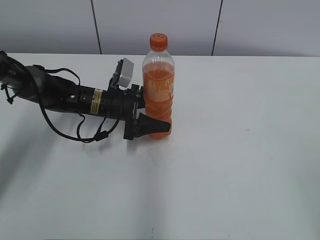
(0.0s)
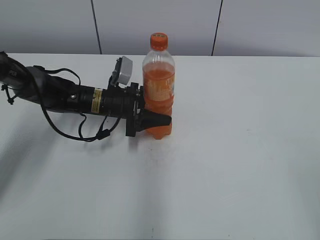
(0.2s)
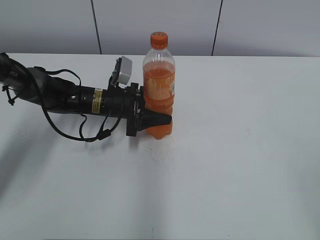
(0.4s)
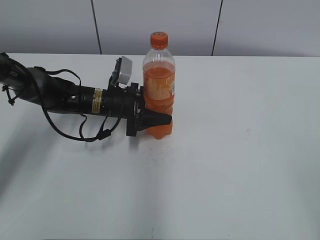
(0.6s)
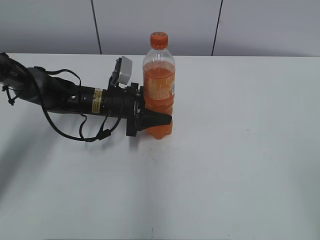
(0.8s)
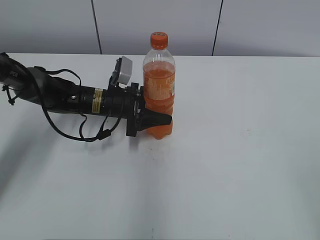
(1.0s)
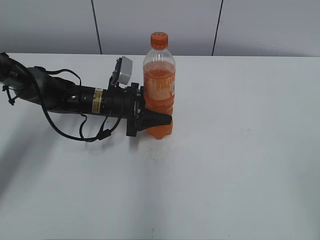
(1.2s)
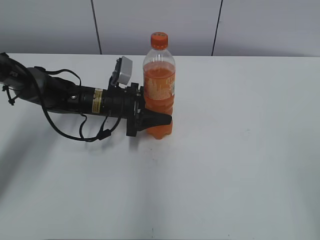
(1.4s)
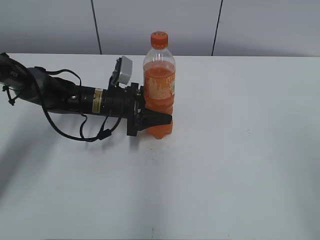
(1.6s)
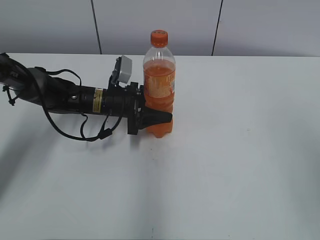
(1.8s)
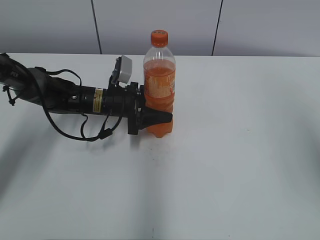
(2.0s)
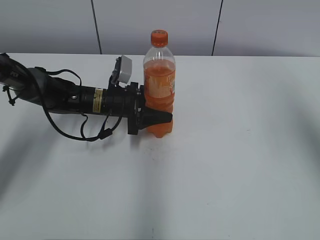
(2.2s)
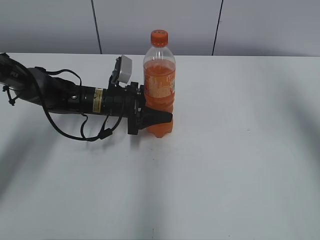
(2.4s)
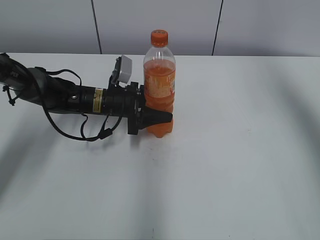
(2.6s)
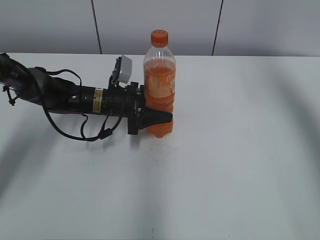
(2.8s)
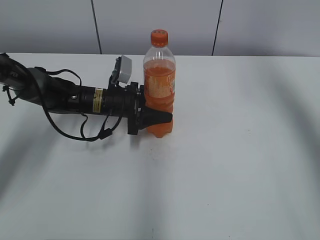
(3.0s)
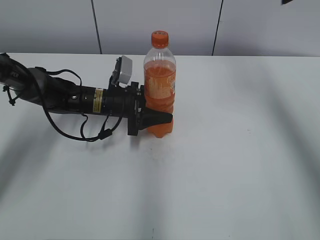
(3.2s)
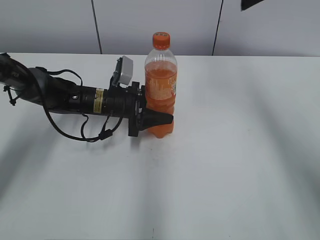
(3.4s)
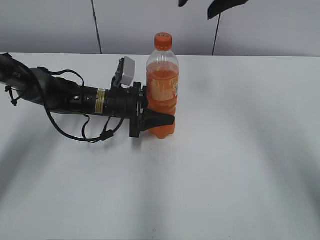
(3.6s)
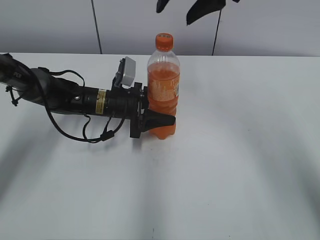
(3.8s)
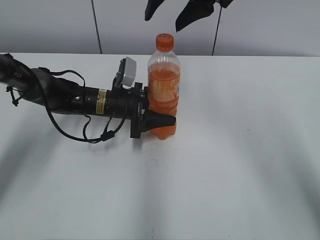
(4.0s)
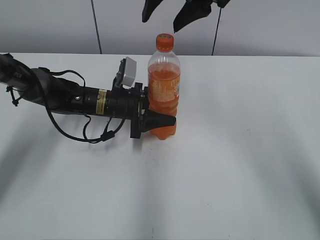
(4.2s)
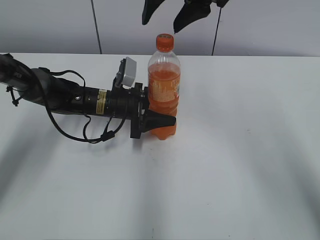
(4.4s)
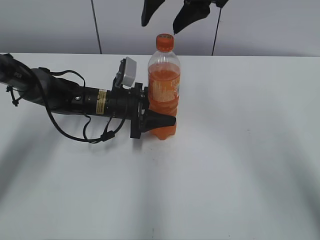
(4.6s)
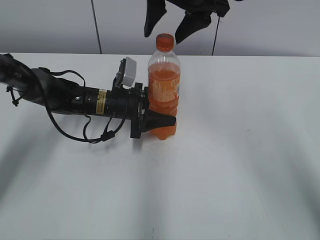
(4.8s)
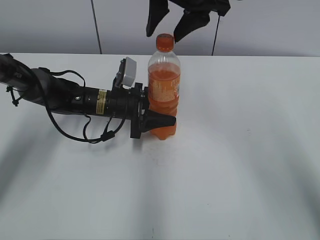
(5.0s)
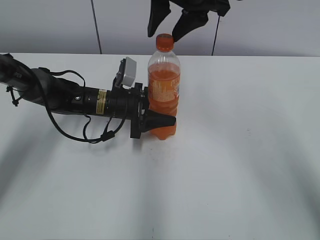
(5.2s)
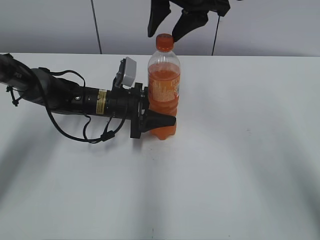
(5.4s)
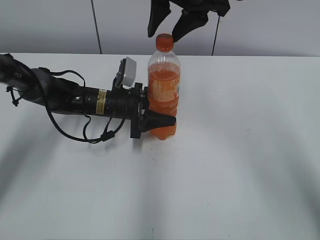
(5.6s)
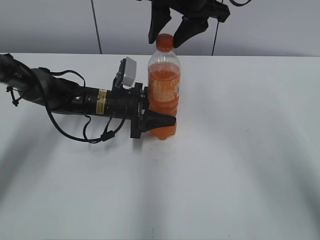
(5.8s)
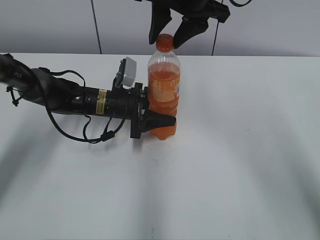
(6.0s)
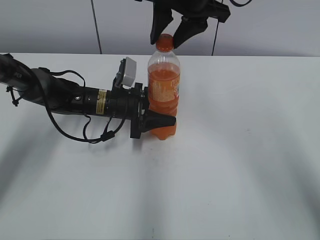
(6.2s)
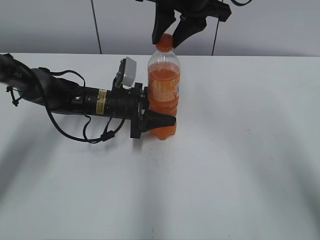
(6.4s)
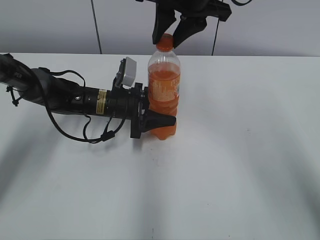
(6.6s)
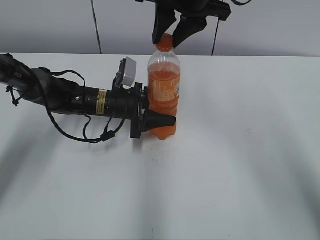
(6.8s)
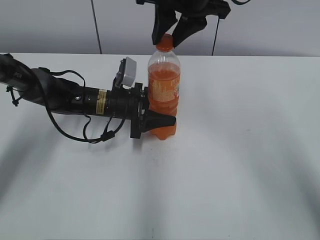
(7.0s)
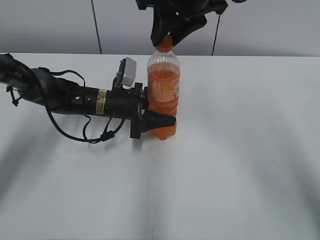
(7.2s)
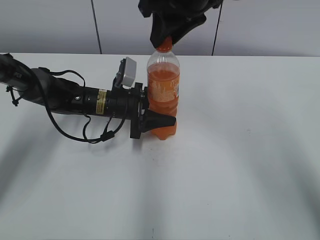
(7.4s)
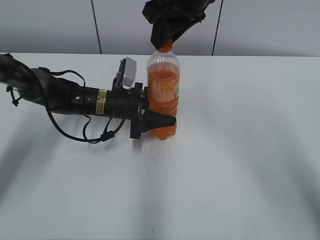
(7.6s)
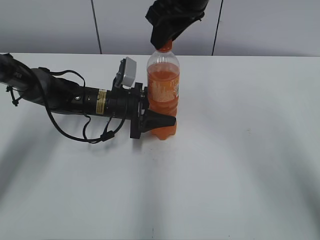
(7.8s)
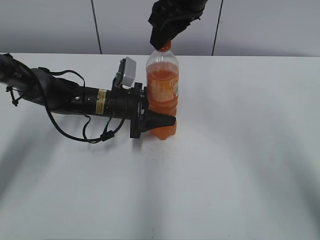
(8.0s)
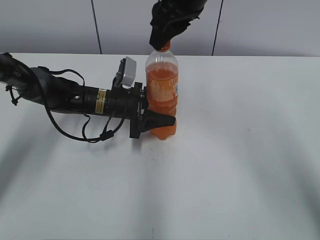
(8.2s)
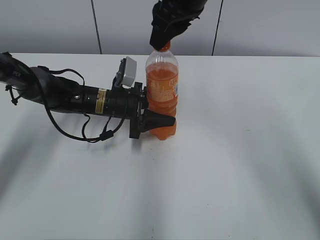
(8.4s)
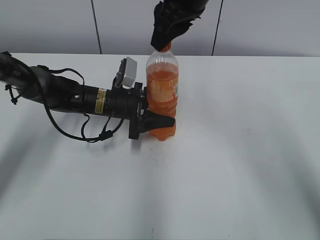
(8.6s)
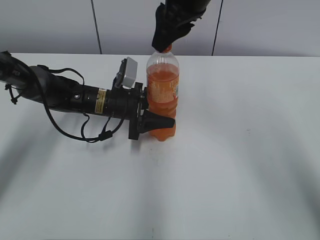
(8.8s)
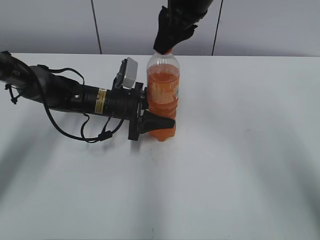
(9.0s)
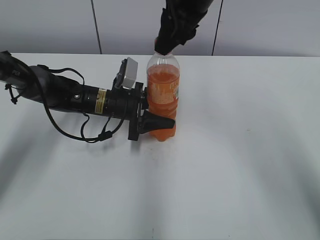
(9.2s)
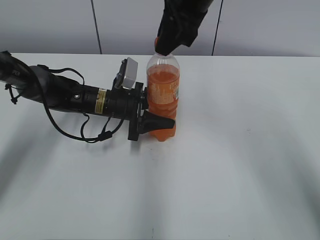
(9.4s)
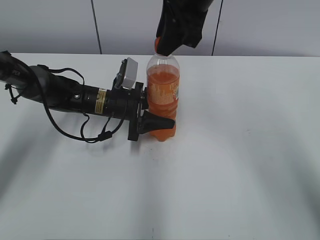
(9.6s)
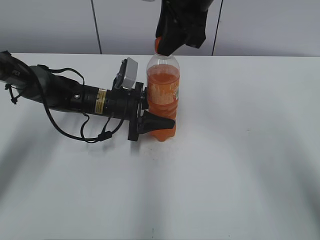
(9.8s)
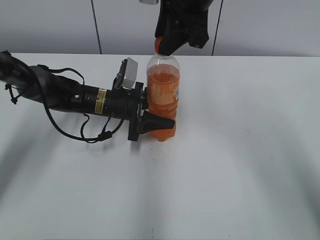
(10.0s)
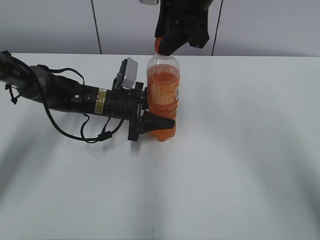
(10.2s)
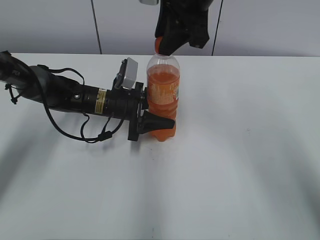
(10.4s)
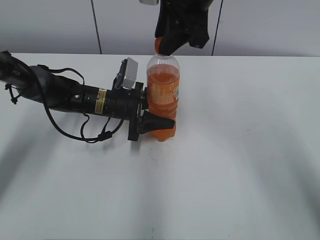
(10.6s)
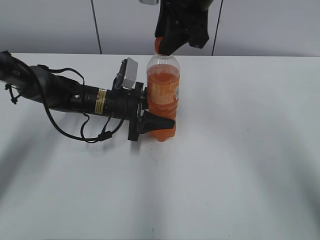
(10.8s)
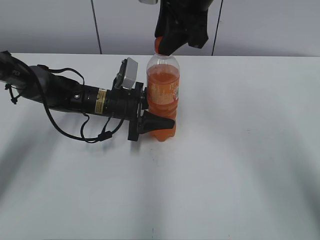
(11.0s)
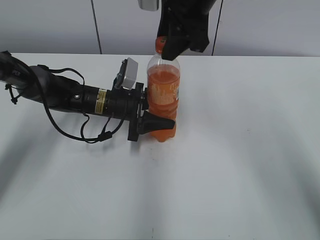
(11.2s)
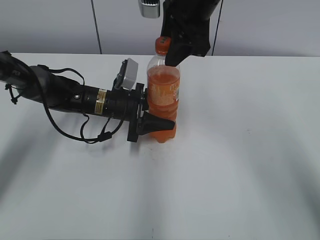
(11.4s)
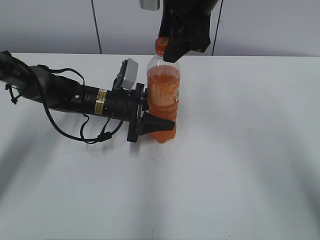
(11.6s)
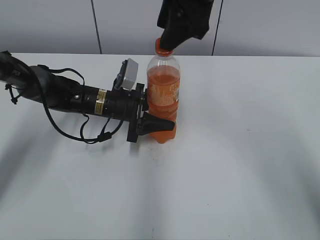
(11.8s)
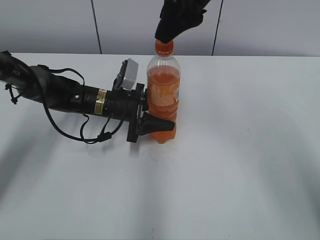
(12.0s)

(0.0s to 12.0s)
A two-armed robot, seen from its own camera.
0.0s - 1.6s: The left gripper closes its fingers; the right gripper shifts by some 5 cm.
1.6s - 3.0s: The right gripper heads forward, covering about 35 cm.
3.0s - 4.4s: The right gripper shifts some 20 cm to the left.
4.4s - 6.0s: The right gripper closes.
6.0s - 7.6s: The right gripper closes its fingers.
10.4s - 12.0s: The right gripper opens up.

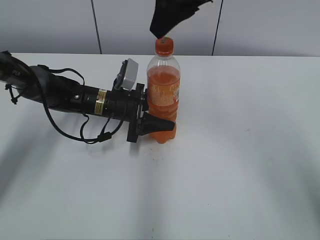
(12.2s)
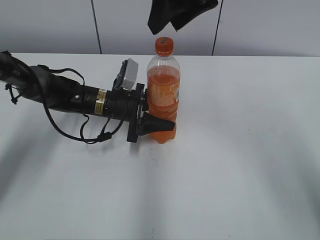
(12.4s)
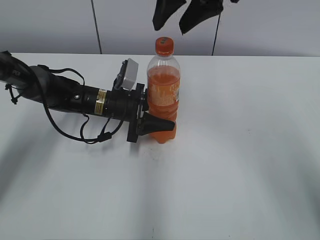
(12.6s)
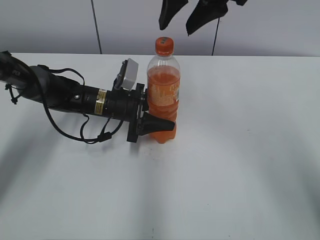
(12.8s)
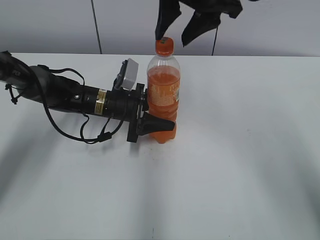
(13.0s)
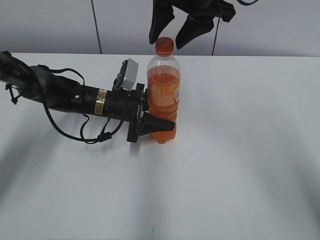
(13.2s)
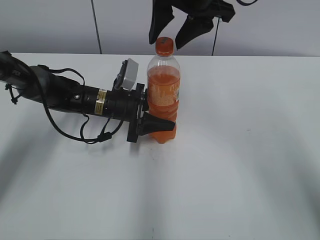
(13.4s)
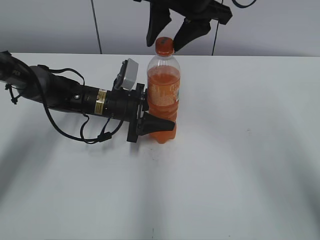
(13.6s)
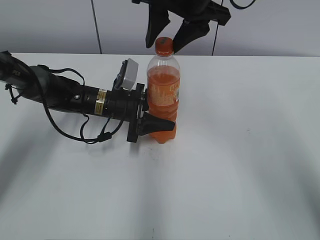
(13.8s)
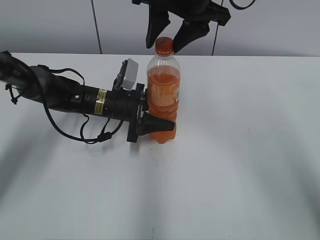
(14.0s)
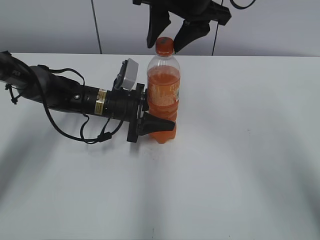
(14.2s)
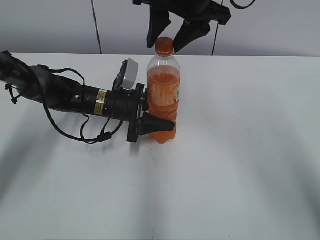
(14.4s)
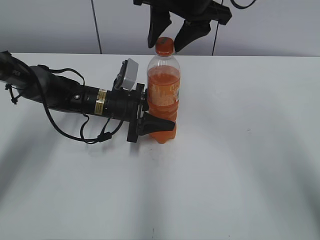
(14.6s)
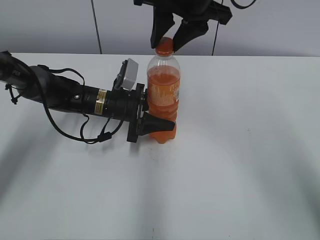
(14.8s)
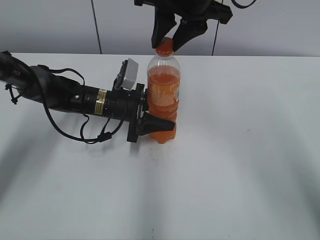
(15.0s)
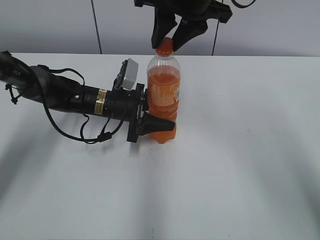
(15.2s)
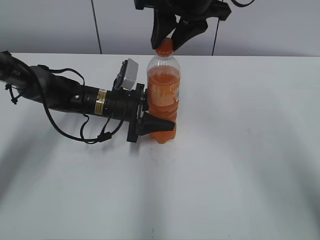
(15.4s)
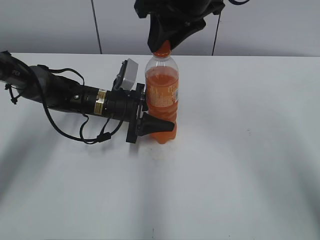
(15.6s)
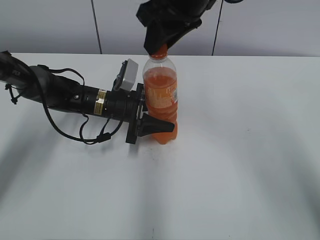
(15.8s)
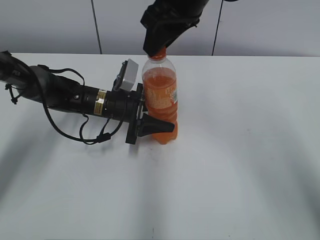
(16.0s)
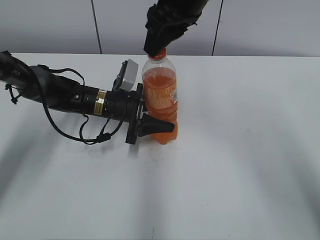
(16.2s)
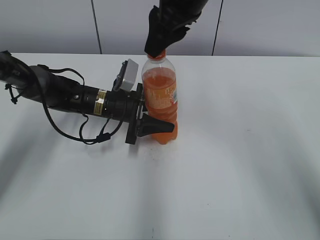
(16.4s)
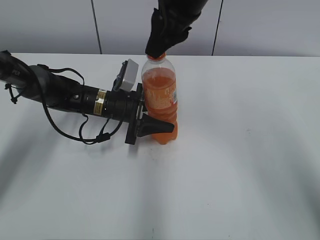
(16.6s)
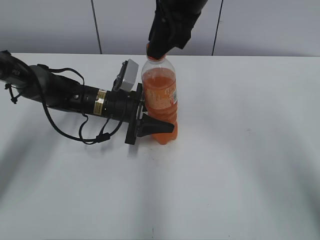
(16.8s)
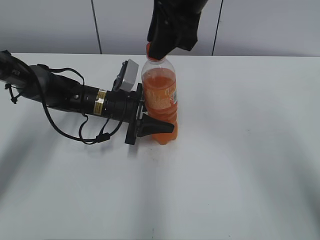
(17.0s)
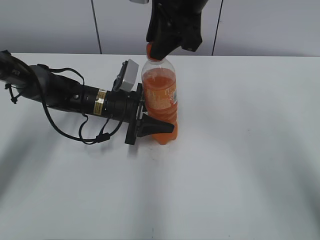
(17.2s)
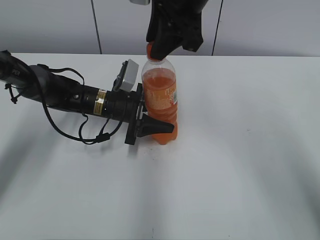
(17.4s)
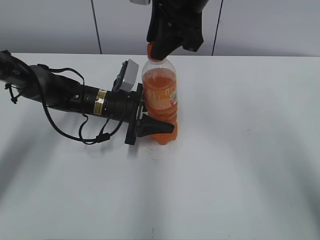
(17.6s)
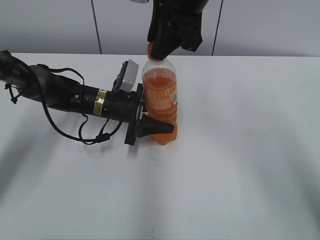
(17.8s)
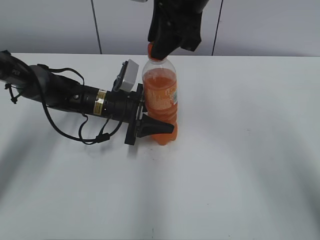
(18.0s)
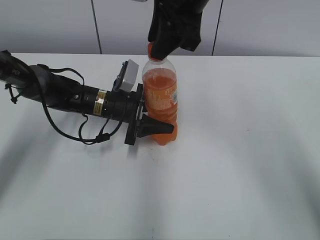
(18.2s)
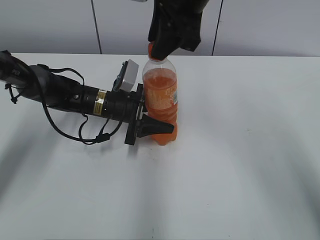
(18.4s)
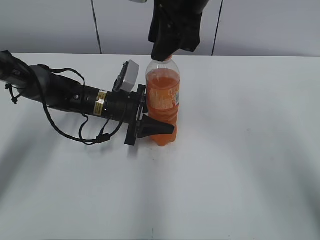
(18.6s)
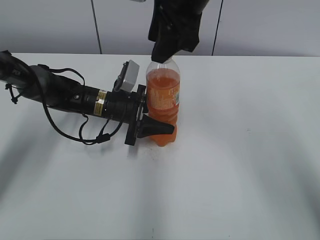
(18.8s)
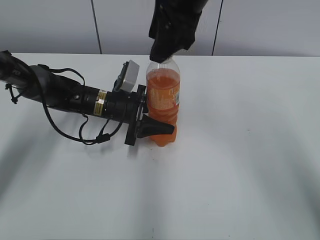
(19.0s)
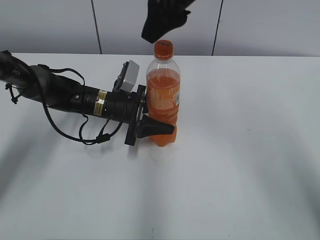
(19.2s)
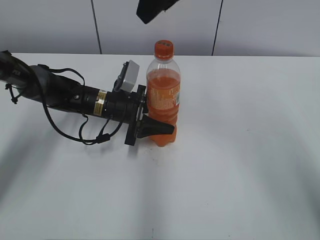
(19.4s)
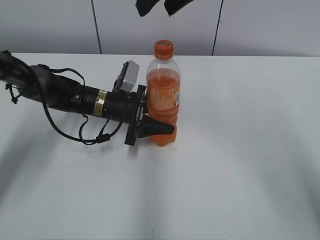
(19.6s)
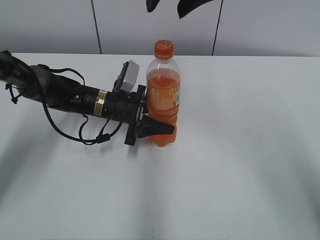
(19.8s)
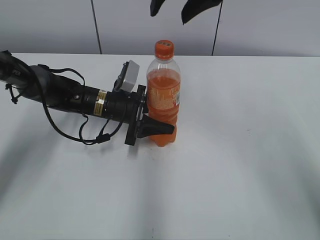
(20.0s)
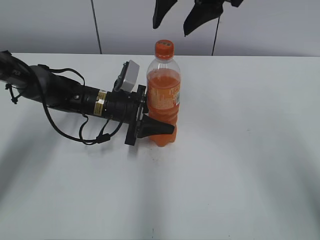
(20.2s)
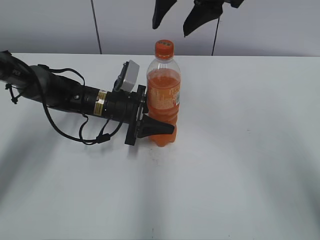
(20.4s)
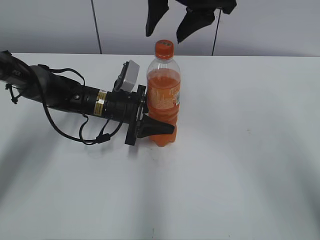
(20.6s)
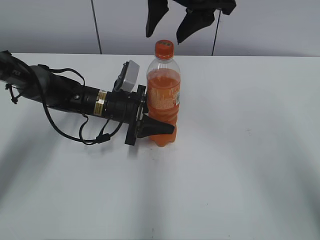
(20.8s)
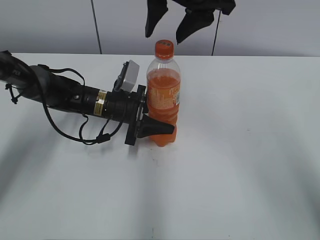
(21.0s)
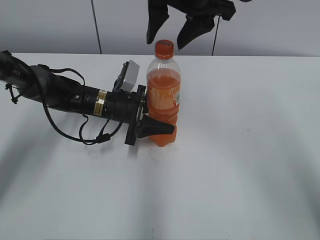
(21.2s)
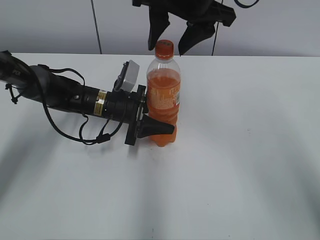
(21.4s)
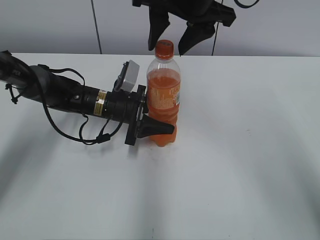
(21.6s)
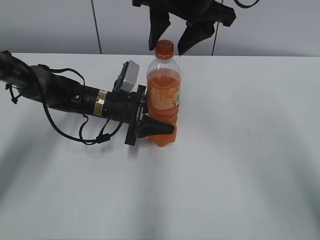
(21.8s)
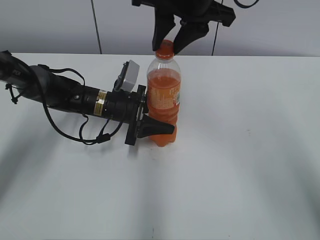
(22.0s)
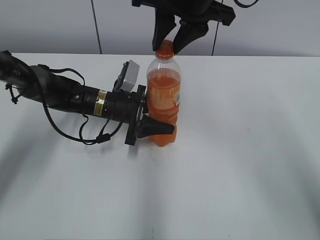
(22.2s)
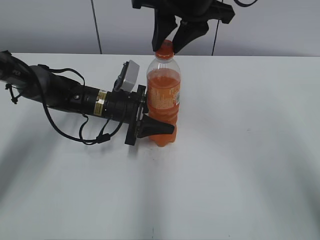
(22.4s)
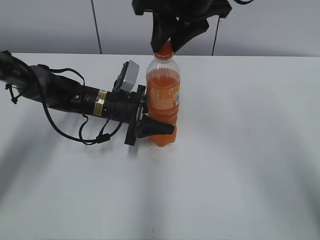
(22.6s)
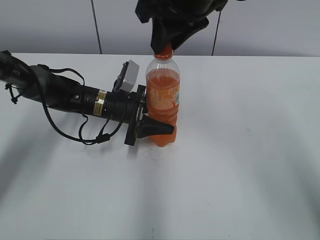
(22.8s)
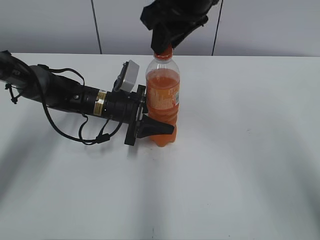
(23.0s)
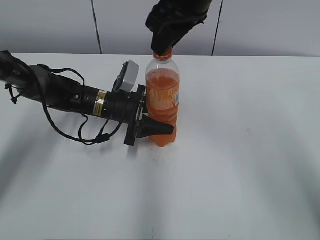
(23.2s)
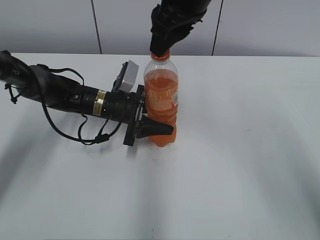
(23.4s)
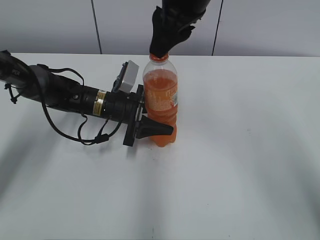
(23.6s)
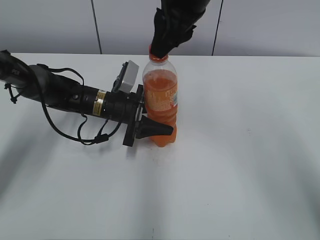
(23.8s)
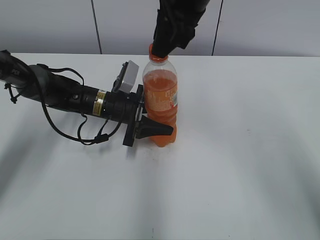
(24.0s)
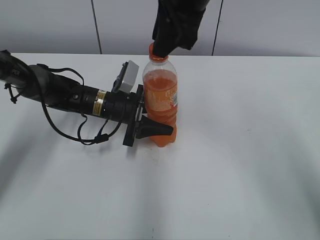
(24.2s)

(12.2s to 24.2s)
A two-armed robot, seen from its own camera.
13.8s - 15.2s: The right gripper closes up.
18.2s - 19.8s: The right gripper opens.
19.8s - 21.2s: The grippers make only small movements.
21.2s - 22.6s: The right gripper closes its fingers.
